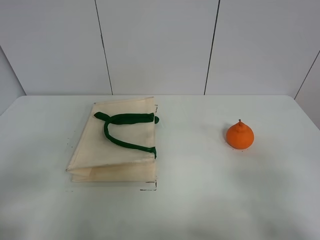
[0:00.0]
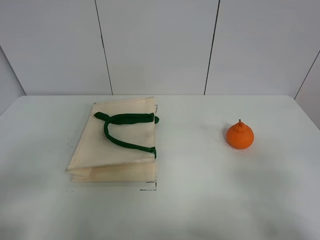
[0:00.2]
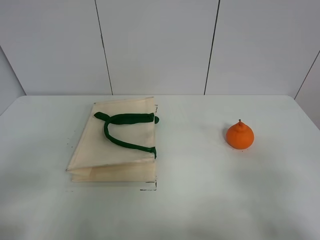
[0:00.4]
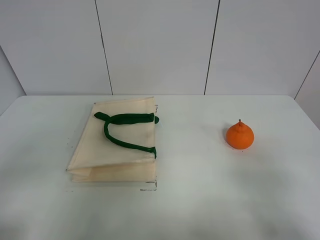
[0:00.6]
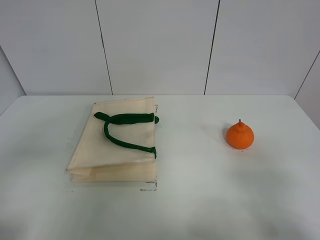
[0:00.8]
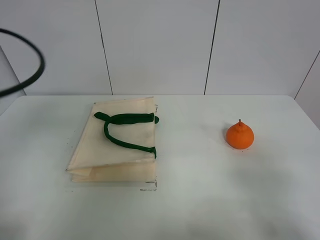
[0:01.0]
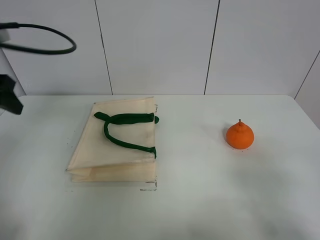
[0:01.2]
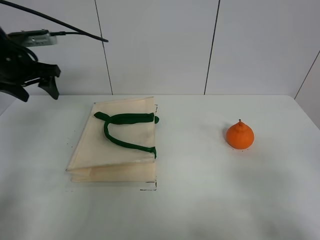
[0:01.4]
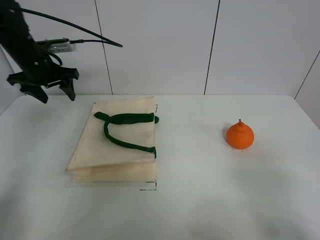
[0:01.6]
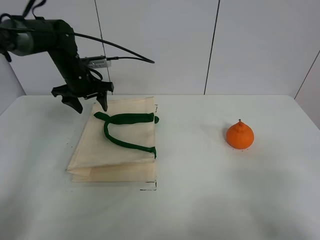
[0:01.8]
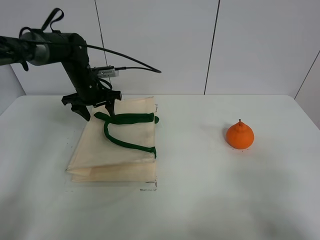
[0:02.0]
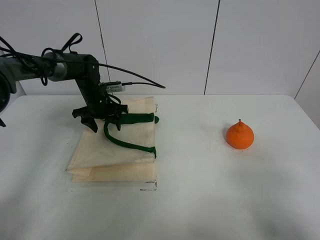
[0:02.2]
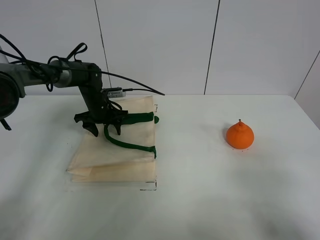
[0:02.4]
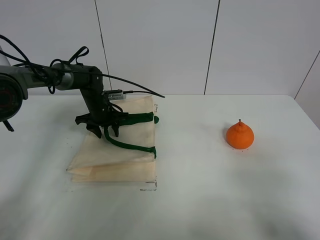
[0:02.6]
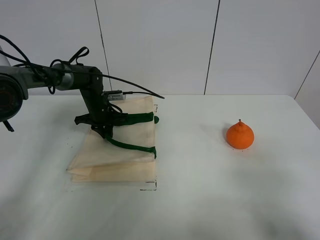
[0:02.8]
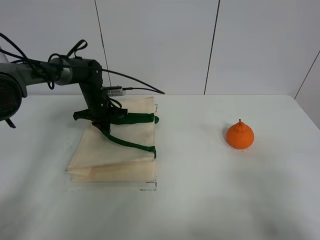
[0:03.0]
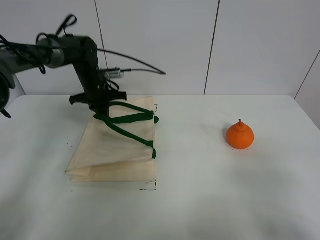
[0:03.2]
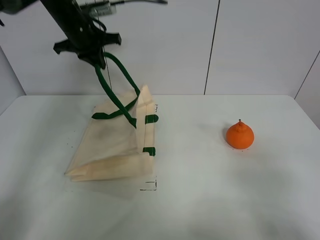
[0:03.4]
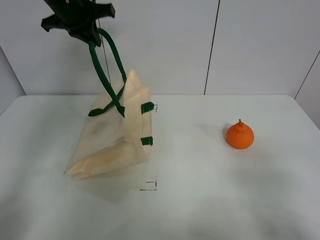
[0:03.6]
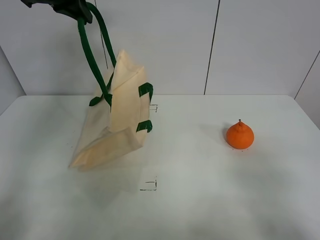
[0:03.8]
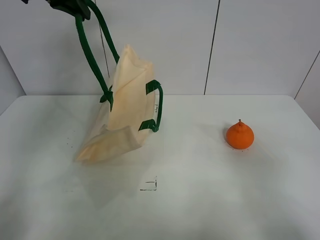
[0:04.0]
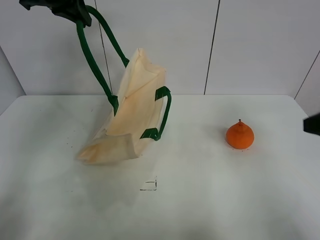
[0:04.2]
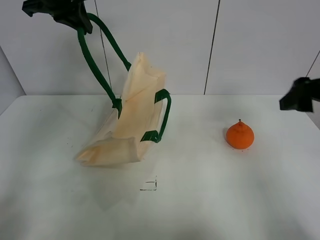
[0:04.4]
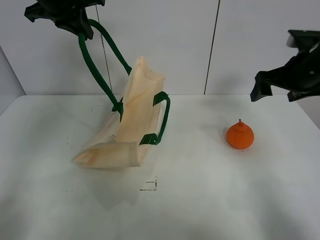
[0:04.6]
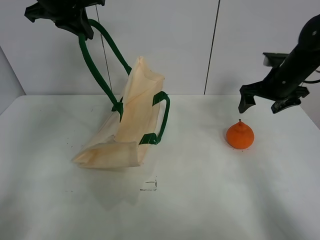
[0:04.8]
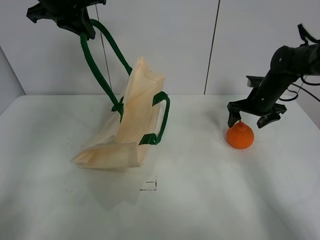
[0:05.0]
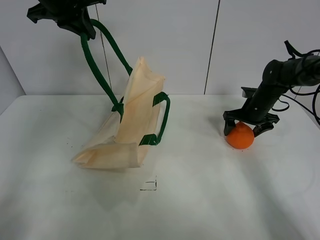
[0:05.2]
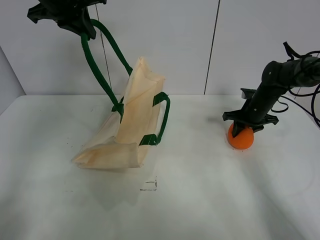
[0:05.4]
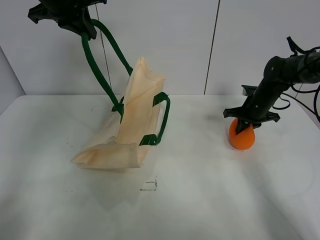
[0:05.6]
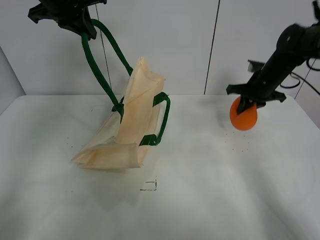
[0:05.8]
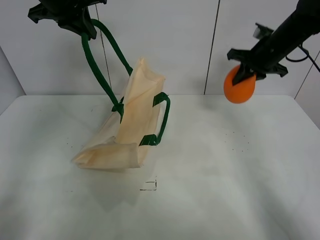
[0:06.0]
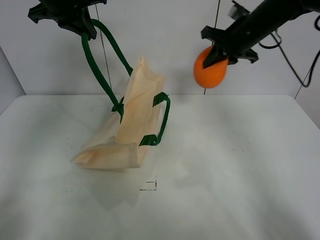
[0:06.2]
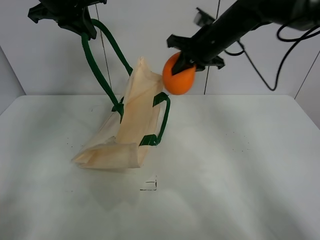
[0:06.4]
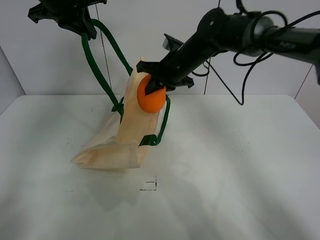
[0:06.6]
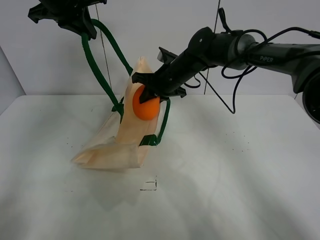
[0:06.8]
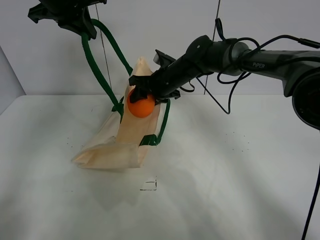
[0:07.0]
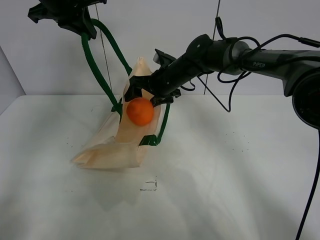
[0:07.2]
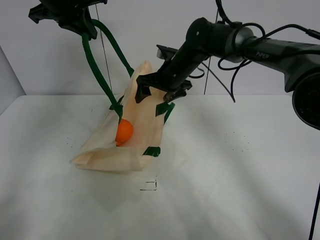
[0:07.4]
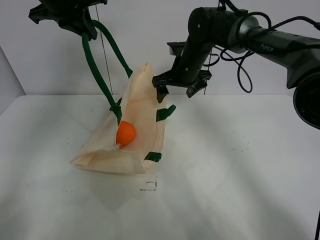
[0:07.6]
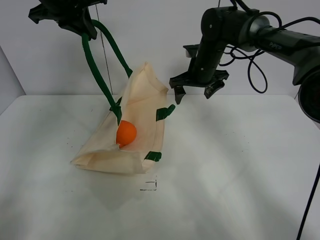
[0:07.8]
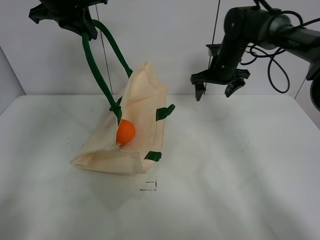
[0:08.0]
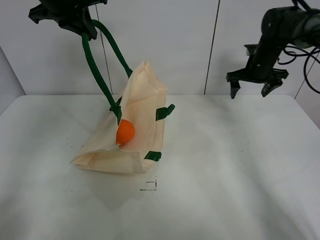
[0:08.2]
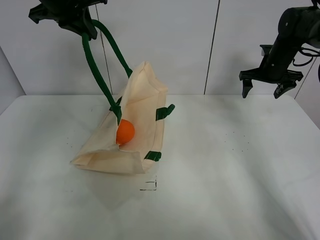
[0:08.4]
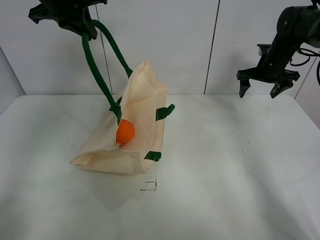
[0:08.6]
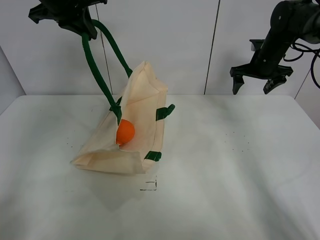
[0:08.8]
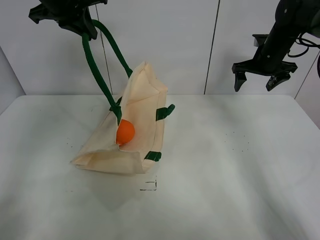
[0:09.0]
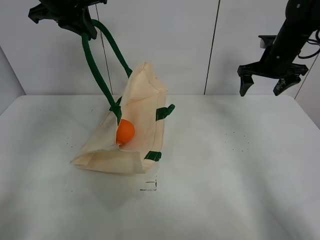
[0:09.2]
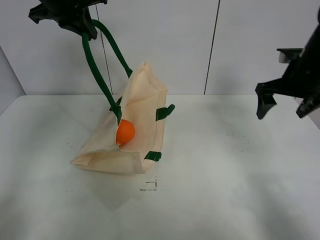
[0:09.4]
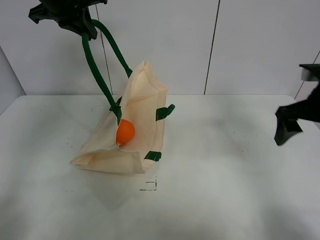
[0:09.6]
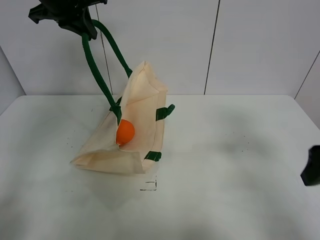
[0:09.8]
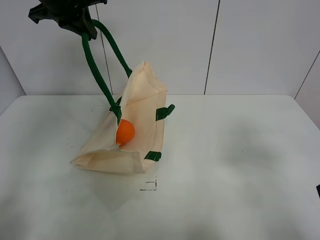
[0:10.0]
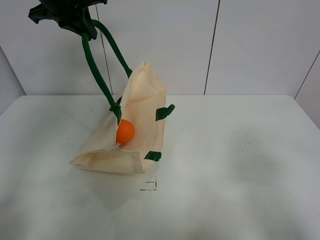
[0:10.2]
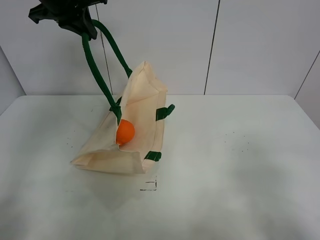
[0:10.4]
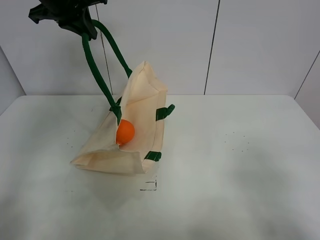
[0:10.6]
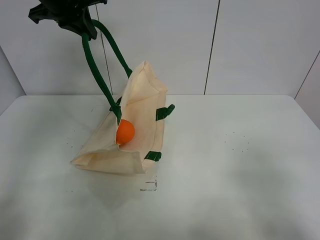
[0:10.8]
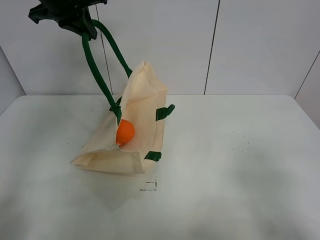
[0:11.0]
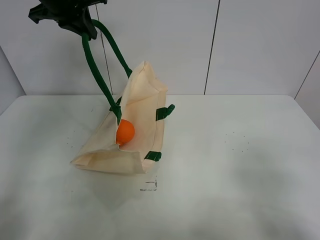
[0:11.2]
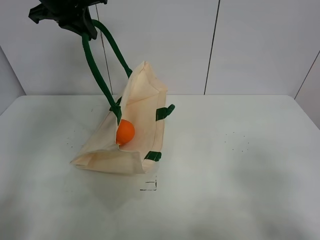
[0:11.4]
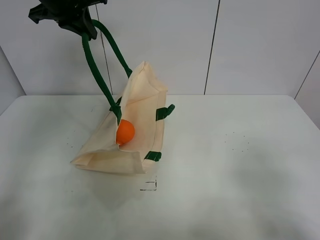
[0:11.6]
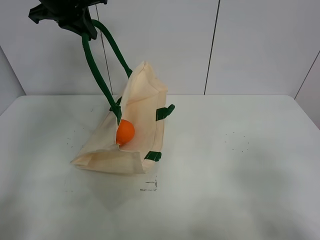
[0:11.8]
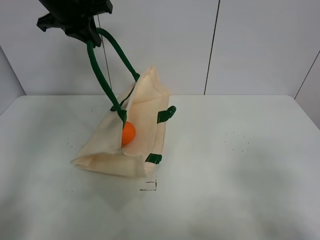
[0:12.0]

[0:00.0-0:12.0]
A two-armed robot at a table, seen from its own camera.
Task of the whole recording: open the white linen bag and put the orange in the bag.
Step, 0:00.0 to 0:03.6: Lift the handbag with left gripper.
Step, 0:03.8 to 0:05.6: Grasp the orange with right gripper.
Step, 0:05.8 to 0:07.4: Place the orange in the handbag with right gripper.
0:00.0 to 0:01.6: The left gripper goes some 40 cm forward.
0:01.6 to 0:03.0: The left gripper shifts some 15 cm downward and to the right, and closes its fingers.
0:03.0 to 0:04.4: The right gripper shifts some 25 cm forward. Meanwhile the left gripper moves upward, about 30 cm.
0:04.4 to 0:06.0: The right gripper travels forward by roughly 20 cm, goes downward and returns, approximately 20 cm each way, and closes up.
0:06.0 to 0:07.6: The right gripper moves to the left, roughly 15 cm, and opens its fingers.
0:07.6 to 0:09.0: The right gripper shifts some 20 cm to the right.
0:09.0 to 0:10.4: The right gripper moves backward, approximately 50 cm.
0:10.4 to 0:12.0: The grippers move only a little.

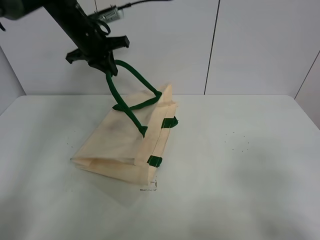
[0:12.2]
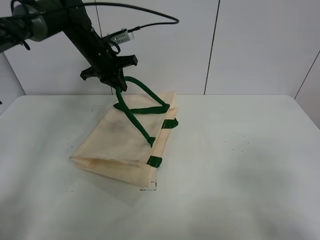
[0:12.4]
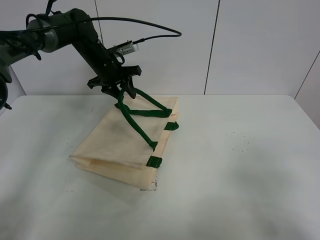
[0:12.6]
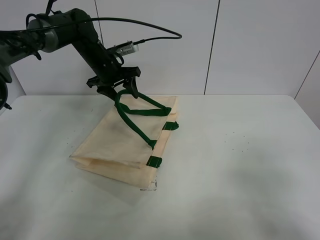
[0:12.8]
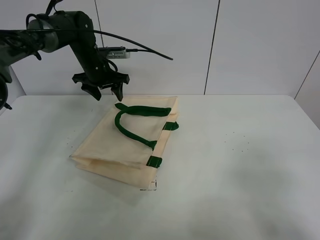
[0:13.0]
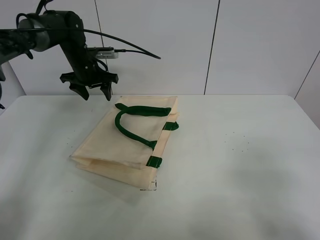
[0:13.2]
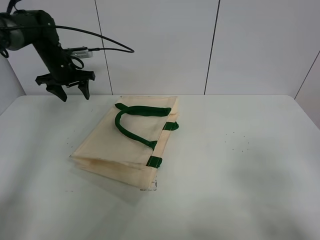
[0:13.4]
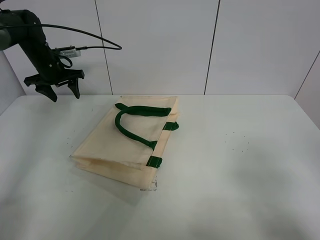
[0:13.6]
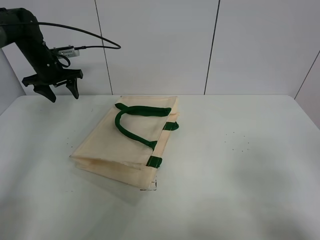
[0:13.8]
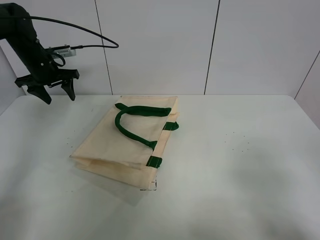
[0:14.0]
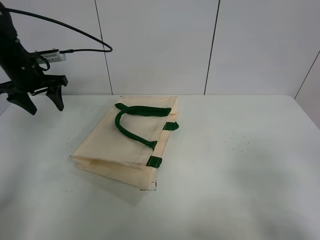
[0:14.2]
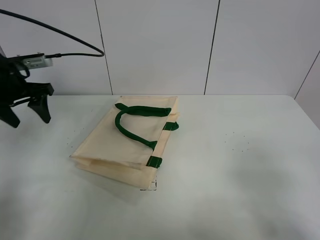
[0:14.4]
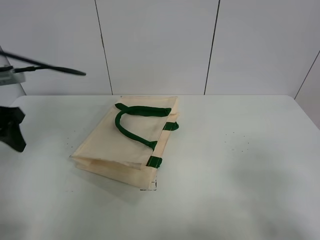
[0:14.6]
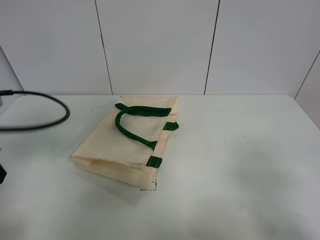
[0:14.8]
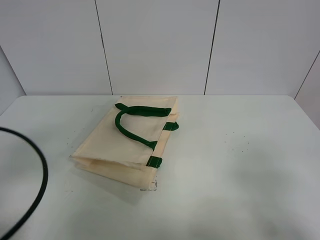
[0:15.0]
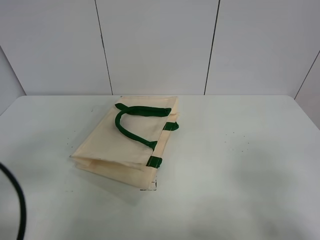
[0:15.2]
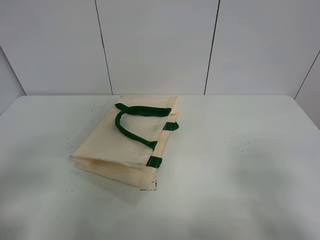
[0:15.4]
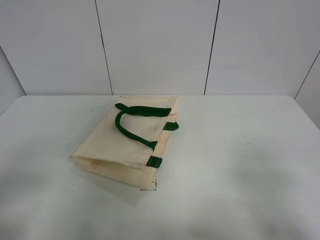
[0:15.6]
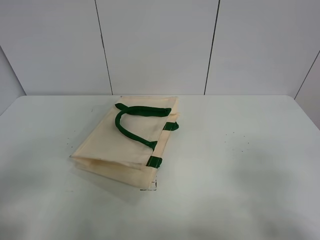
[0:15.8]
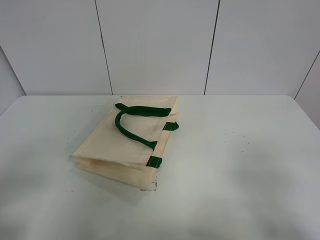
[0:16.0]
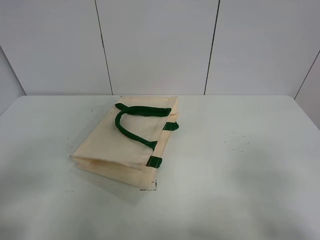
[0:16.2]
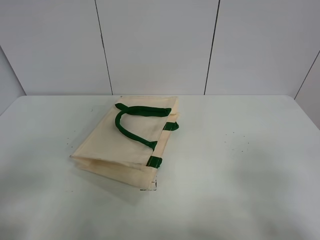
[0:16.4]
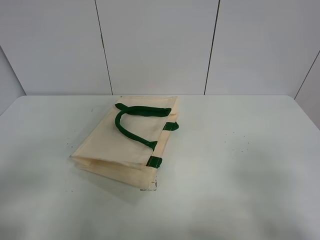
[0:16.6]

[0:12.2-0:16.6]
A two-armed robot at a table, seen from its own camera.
Task of the whole recording: open the white linen bag and put the orange in the bag.
0:12.2 to 0:13.6: The left gripper travels to the left and downward by approximately 15 cm, and opens its fingers.
0:13.6 to 0:15.2: The left gripper moves backward, some 50 cm.
